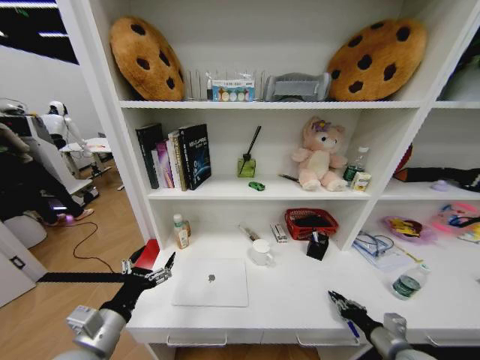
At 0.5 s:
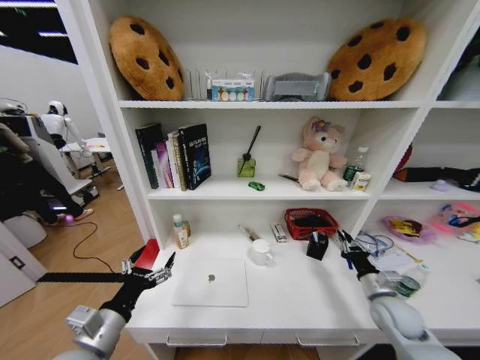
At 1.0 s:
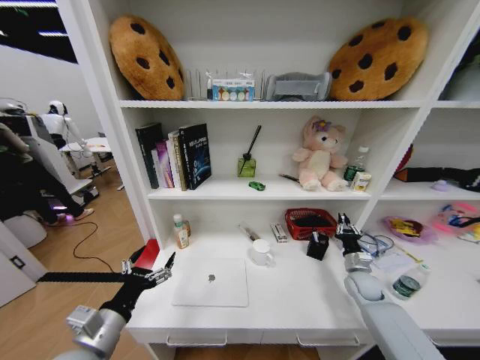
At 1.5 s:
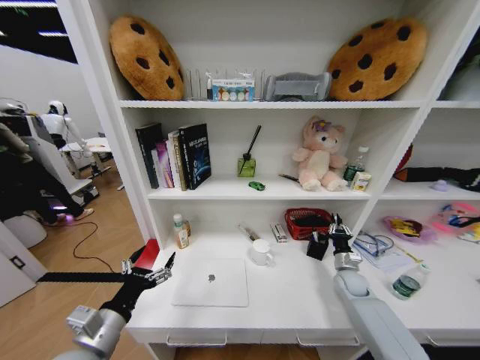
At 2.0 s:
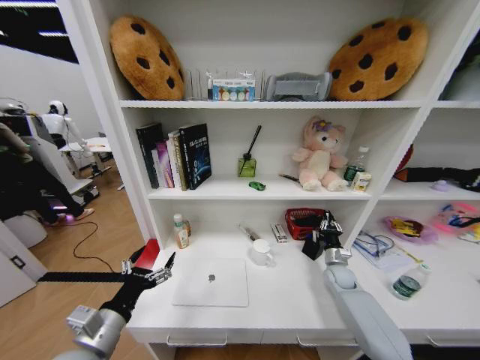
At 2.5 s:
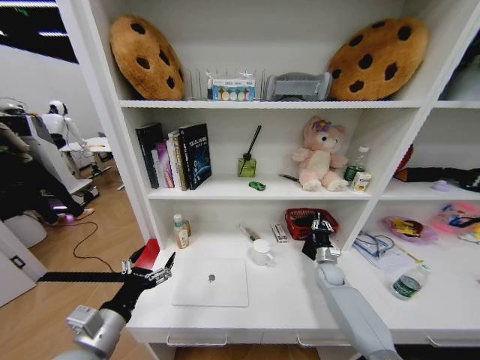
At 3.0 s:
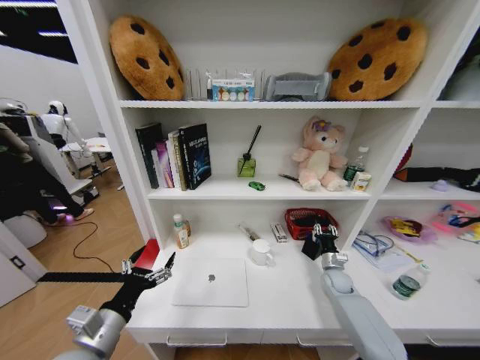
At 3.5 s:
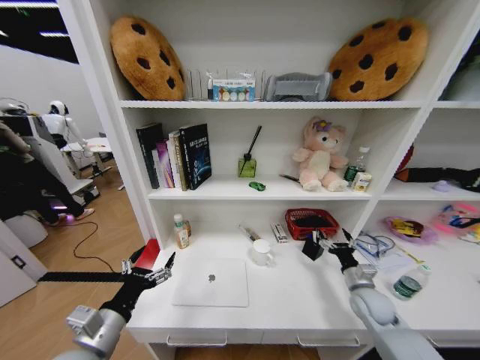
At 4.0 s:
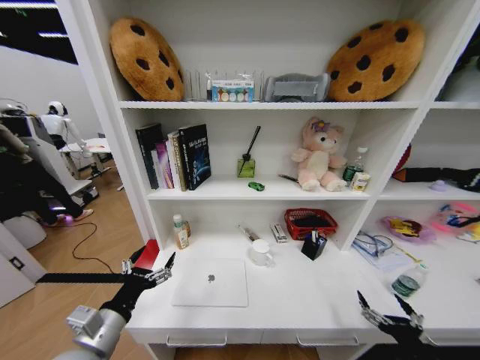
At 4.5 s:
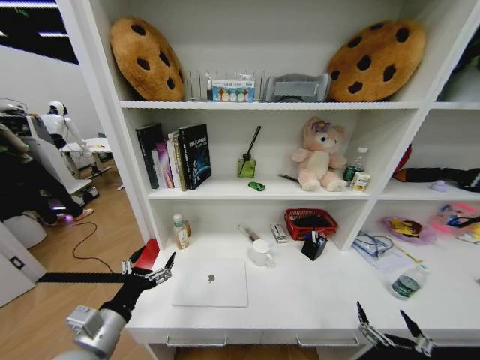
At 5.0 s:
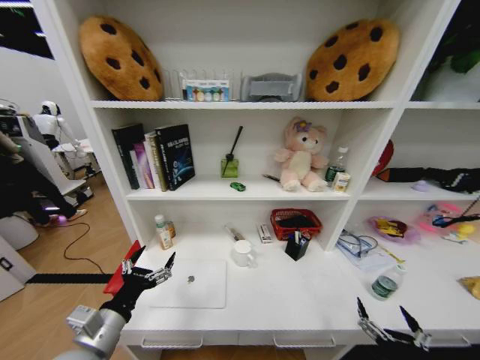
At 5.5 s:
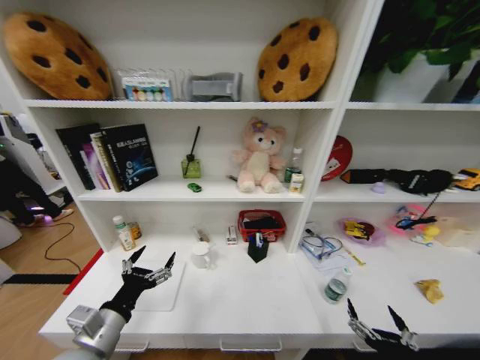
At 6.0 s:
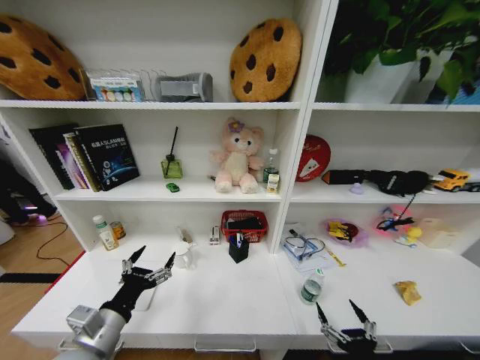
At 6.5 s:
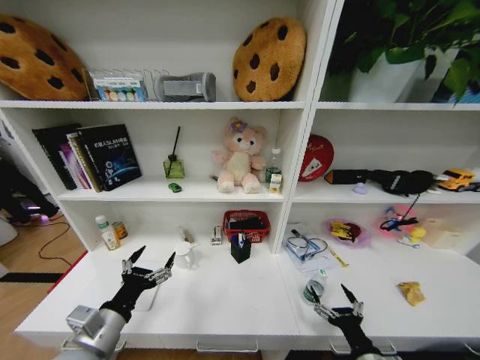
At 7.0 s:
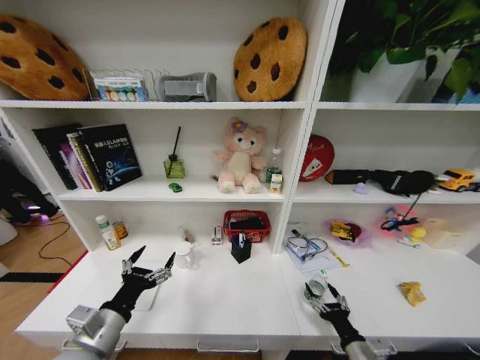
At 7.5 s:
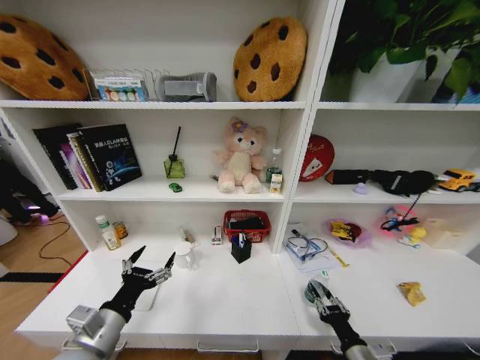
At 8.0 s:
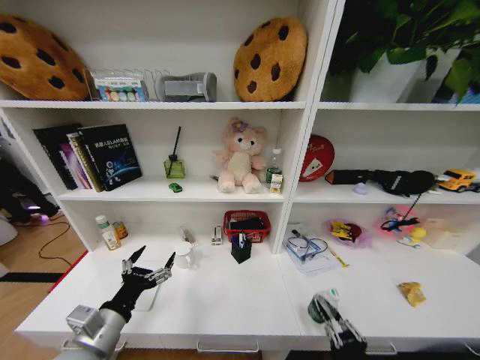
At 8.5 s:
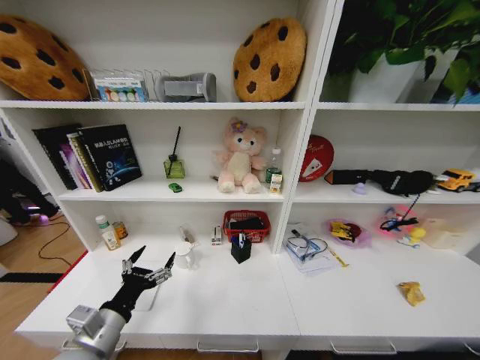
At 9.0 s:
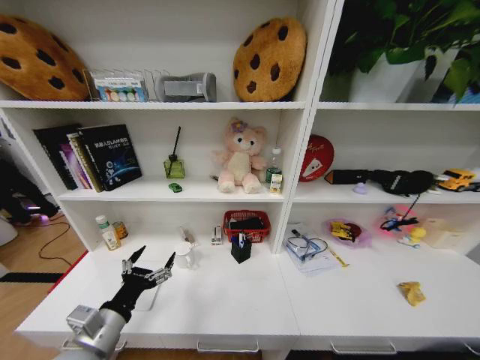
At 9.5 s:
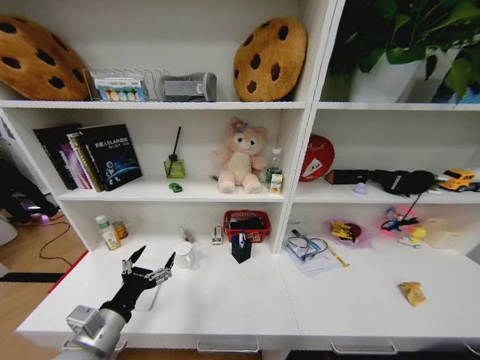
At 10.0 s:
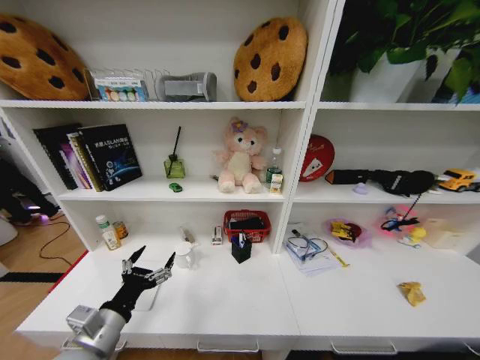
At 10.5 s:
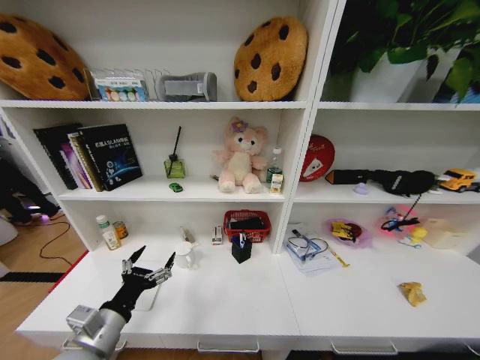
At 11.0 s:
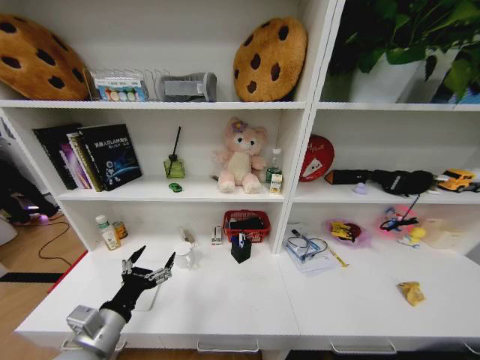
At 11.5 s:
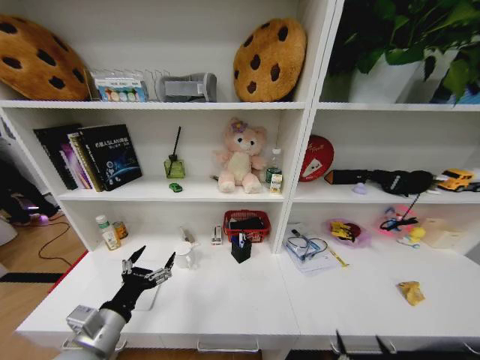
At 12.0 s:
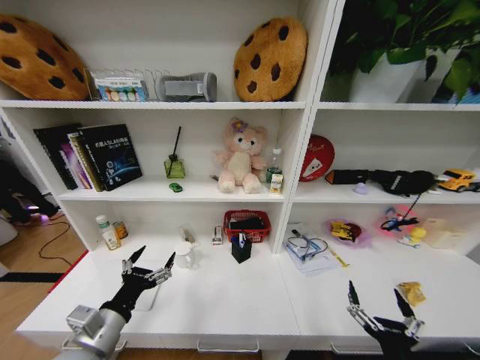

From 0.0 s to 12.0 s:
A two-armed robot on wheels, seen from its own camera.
Task of the whole recording: Organize the objects on the table.
From 0.0 s to 2.0 s: The right gripper goes about 25 cm forward.
From 2.0 s to 4.0 s: The right gripper shifts some 35 cm backward, and opens its fingers.
From 4.0 s to 6.0 s: The right gripper shifts roughly 10 cm to the left.
From 6.0 s to 8.0 s: The right gripper moves approximately 10 cm forward and comes back, and closes.
From 8.0 s to 10.0 s: The right gripper is displaced downward by roughly 30 cm.
From 10.0 s to 12.0 s: The right gripper heads upward, covering roughly 35 cm, and opens its fingers.

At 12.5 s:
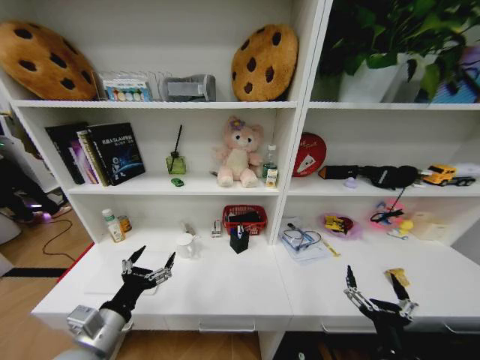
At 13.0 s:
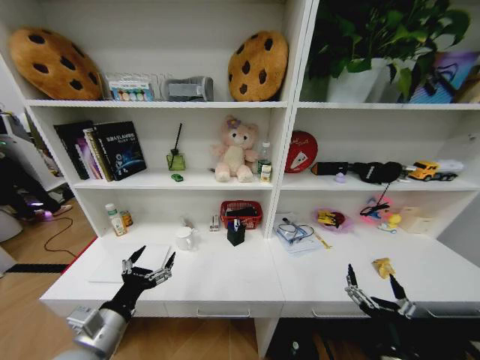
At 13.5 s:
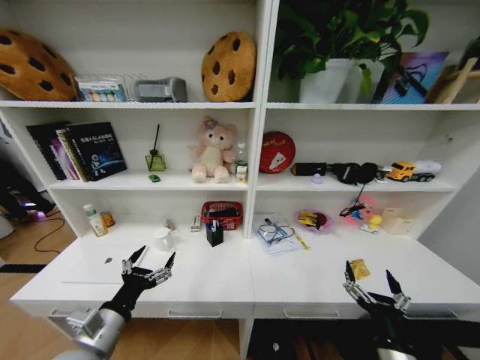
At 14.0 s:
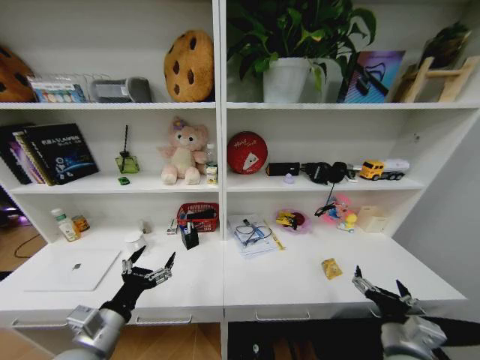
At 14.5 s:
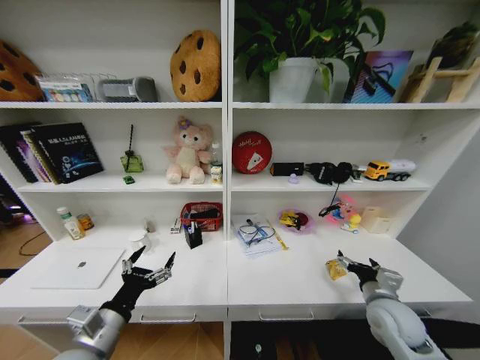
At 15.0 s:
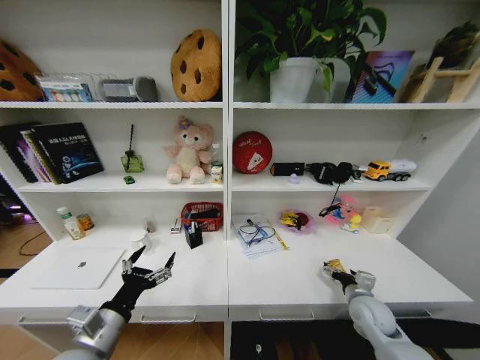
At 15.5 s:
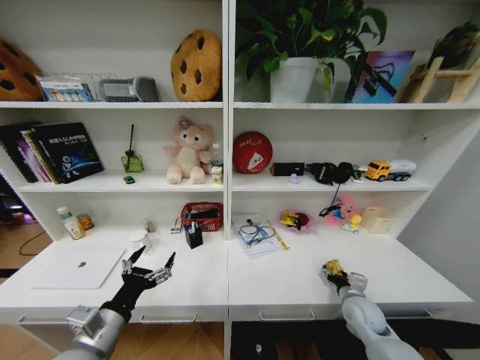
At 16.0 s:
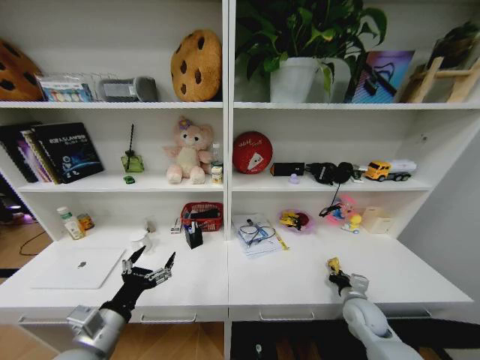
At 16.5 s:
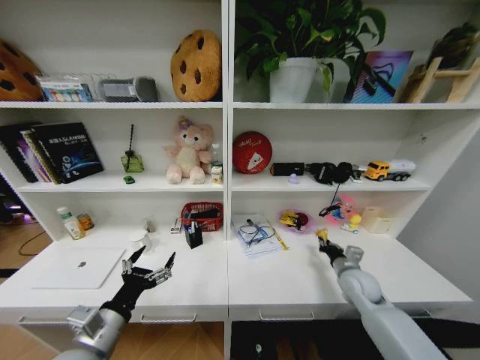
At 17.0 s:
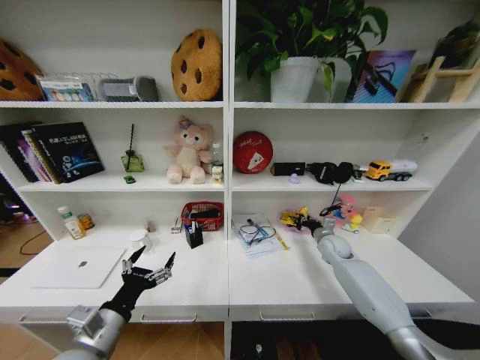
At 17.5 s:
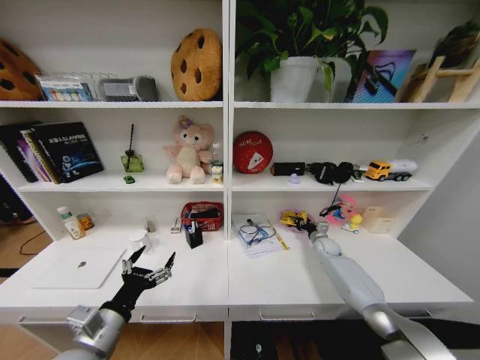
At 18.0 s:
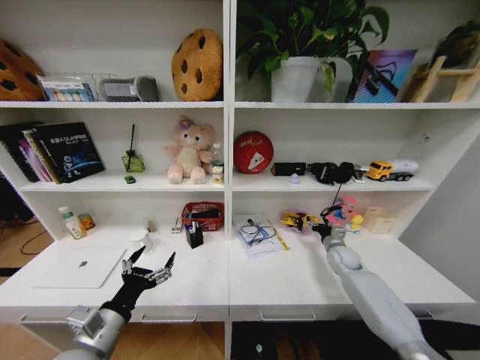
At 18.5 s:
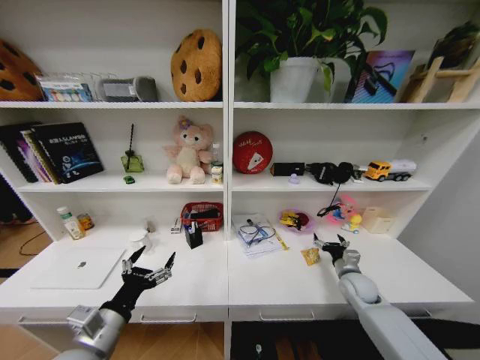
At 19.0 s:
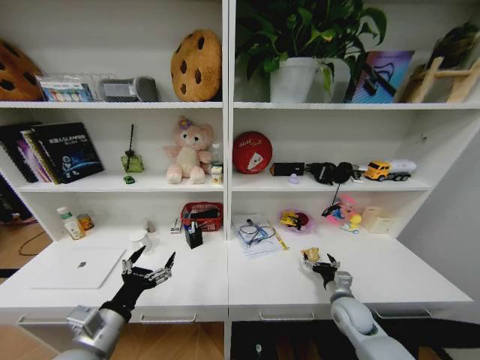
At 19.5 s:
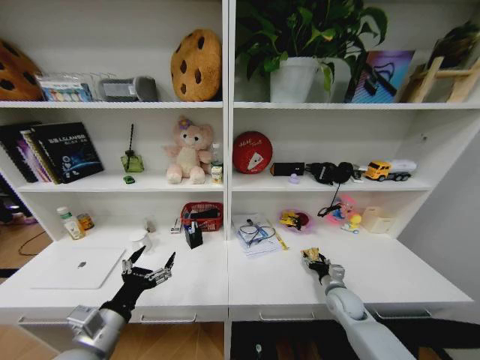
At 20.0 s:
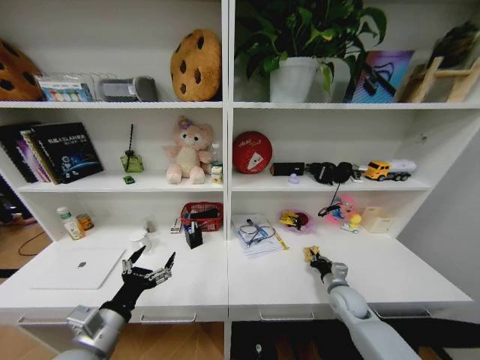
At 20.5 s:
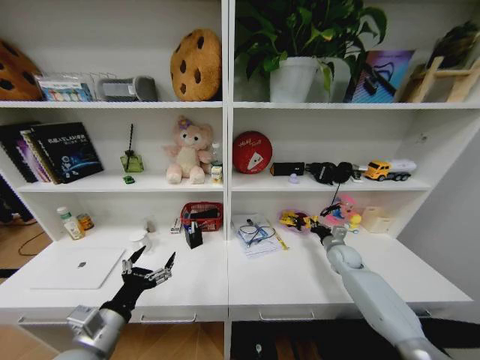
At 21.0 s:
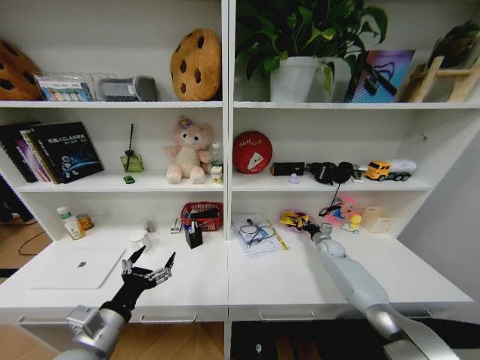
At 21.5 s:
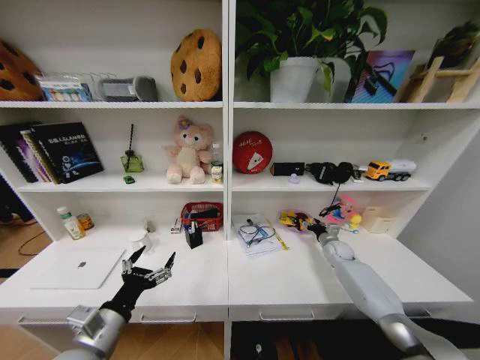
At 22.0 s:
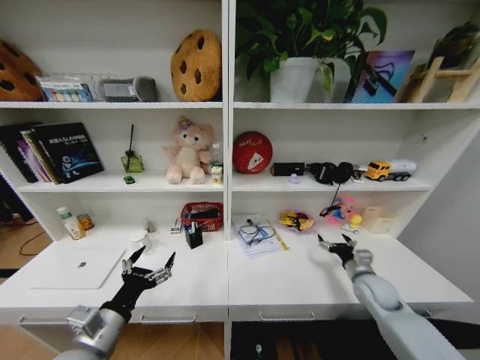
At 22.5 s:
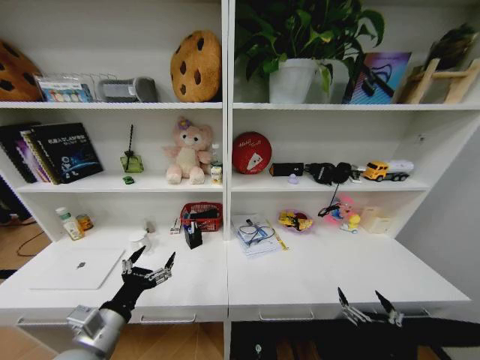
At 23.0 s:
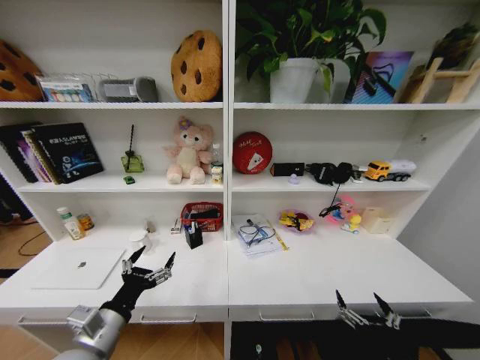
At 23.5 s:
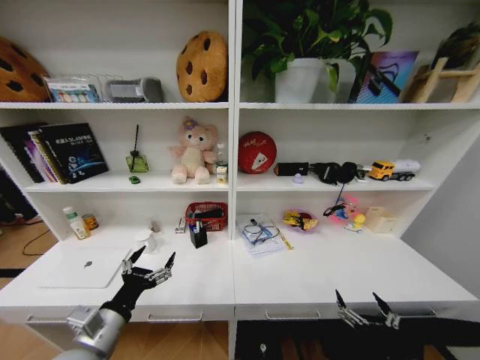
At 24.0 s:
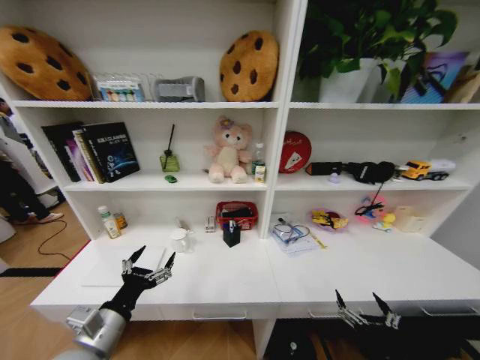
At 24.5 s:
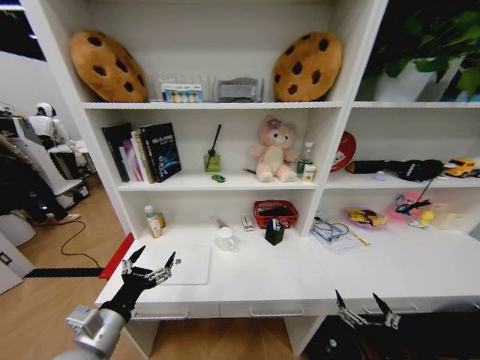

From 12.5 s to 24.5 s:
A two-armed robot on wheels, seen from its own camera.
Task of the whole recording: Organize the objects on the table.
From 12.5 s to 14.5 s: The right gripper travels forward and to the right by approximately 20 cm.
From 14.5 s to 16.5 s: The right gripper moves forward, about 10 cm, and closes its fingers.
From 16.5 s to 18.5 s: The right gripper goes forward and returns, approximately 20 cm each way, and opens up.
From 18.5 s to 20.5 s: The right gripper shifts about 10 cm forward, and closes its fingers.
From 20.5 s to 22.5 s: The right gripper travels backward by some 40 cm, and opens up.
